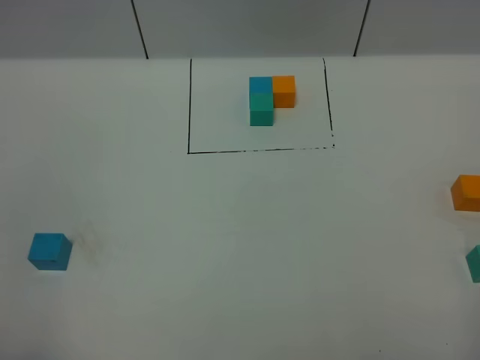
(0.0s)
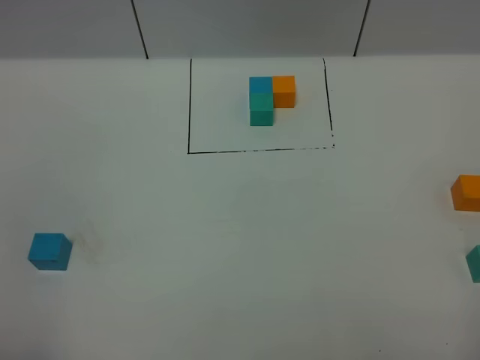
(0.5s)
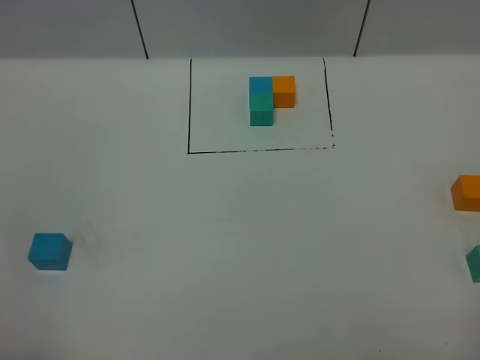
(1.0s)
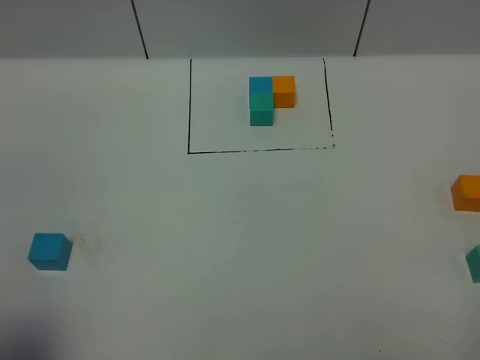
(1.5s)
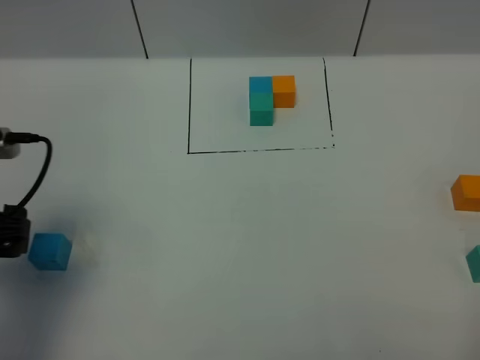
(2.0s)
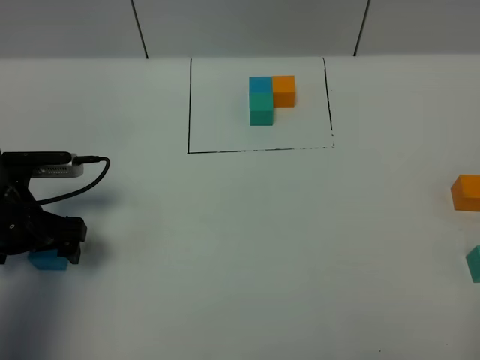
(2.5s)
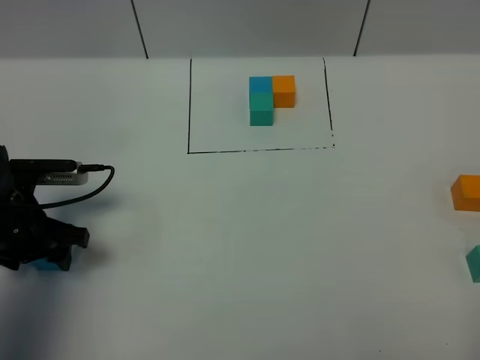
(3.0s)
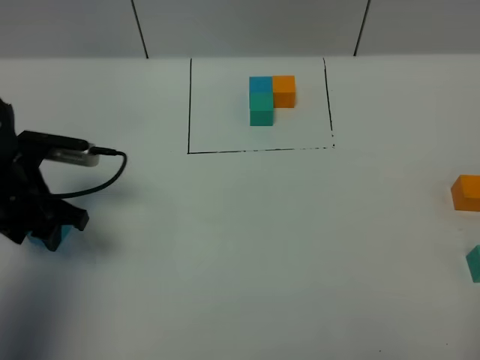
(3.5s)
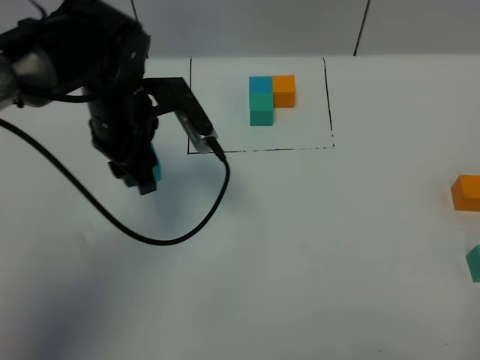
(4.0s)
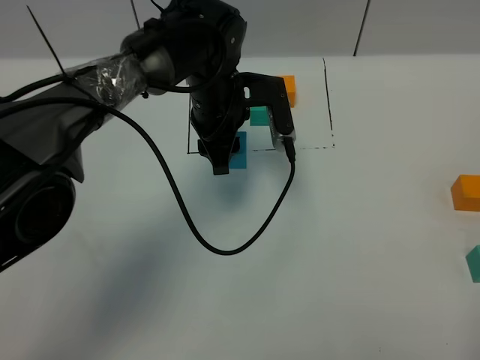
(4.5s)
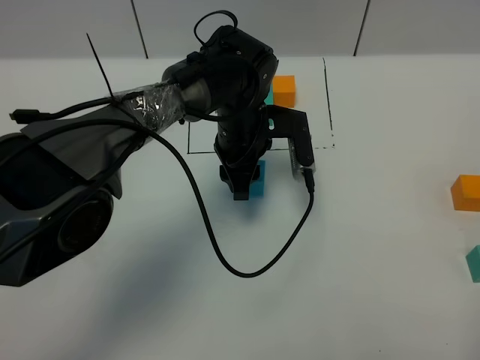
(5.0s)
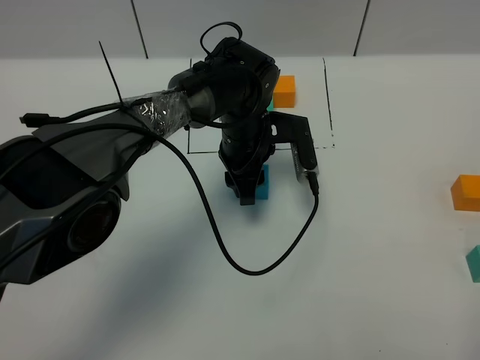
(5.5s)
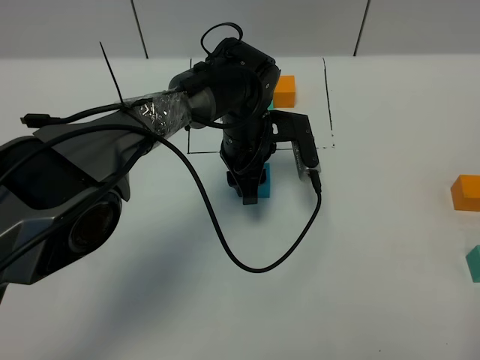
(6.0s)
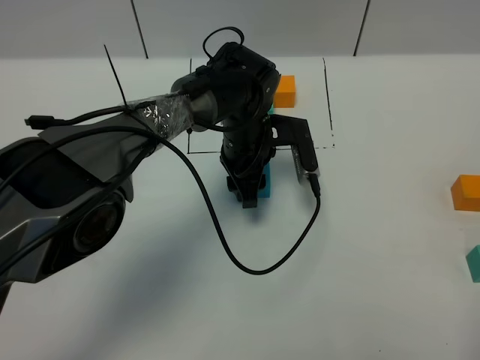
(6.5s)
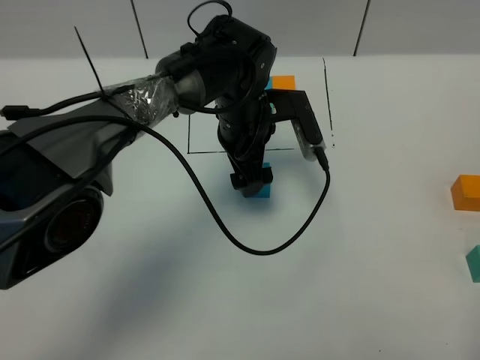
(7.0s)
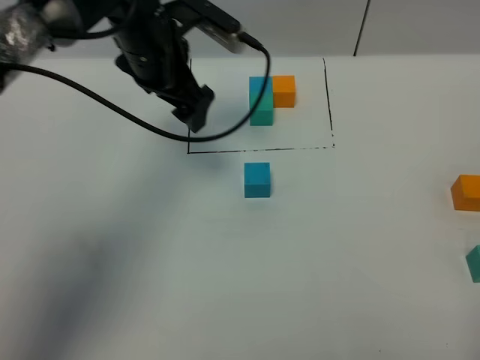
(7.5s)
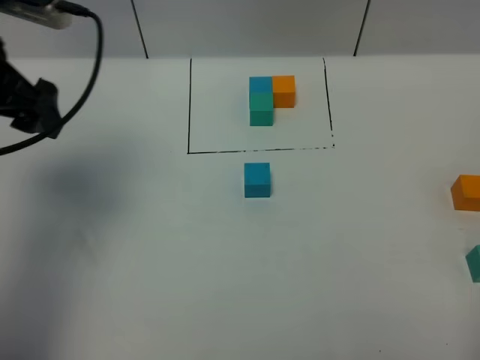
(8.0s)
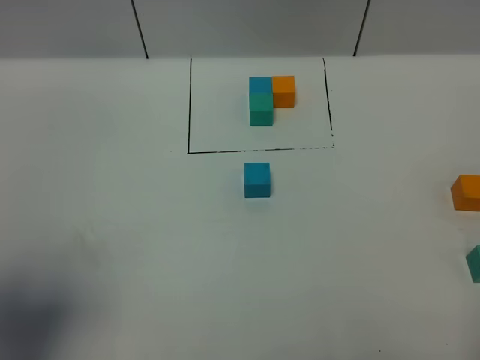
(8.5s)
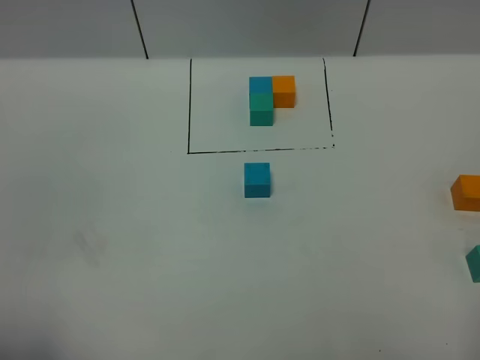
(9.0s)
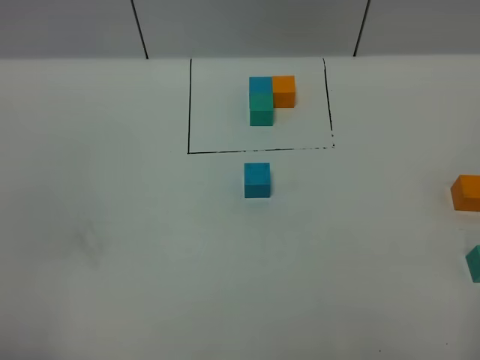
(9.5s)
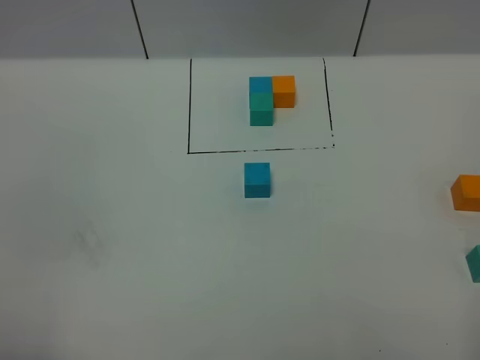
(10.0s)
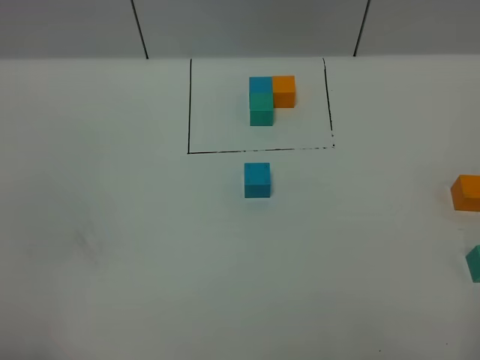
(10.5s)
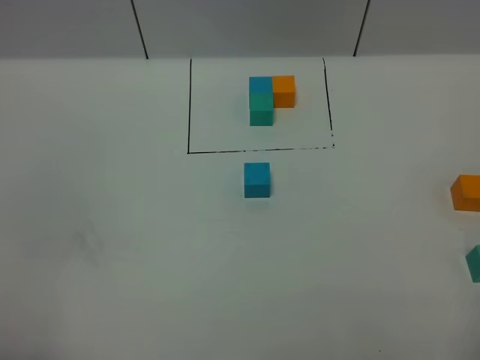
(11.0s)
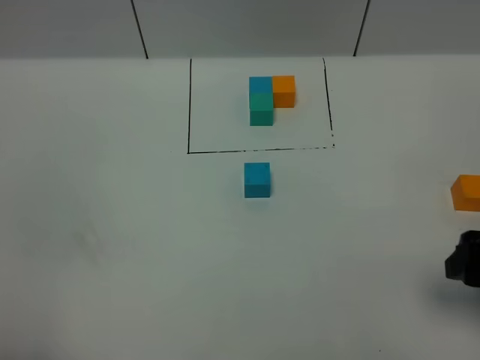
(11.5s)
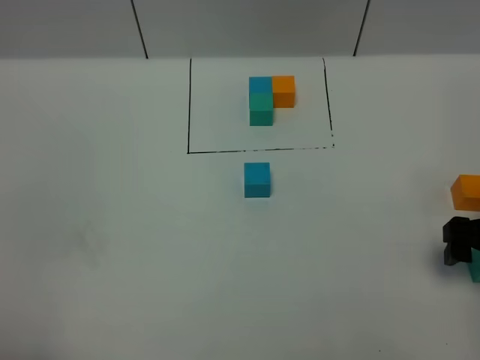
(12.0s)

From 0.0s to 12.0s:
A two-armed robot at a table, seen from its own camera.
Task of the whole recording: According to the building block template in front, assemble the scattered blocks together.
Step, from 0.0s to 6.5s: Put the blue build block in the center of the table.
From 0.0s to 2.0s: The left gripper is displaced forward by roughly 20 cm, and opens its fingers.
From 2.0s to 4.0s: The left gripper heads to the right and forward, covering about 20 cm, and closes up.
From 4.0s to 6.0s: The left gripper heads to the right and downward, covering some 15 cm.
From 6.0s to 8.0s: The left gripper goes about 35 cm to the left and upward, and opens up.
From 8.0s to 10.0s: The left gripper heads backward, covering roughly 30 cm, and closes its fingers.
From 10.0s to 12.0s: The right gripper moves forward and downward, approximately 25 cm.

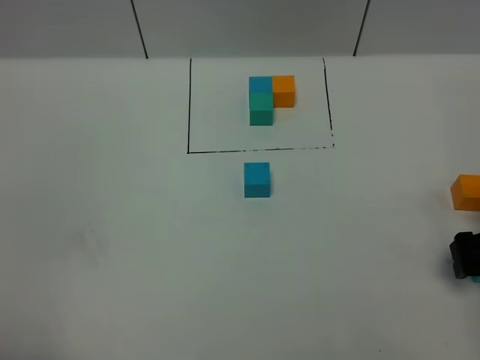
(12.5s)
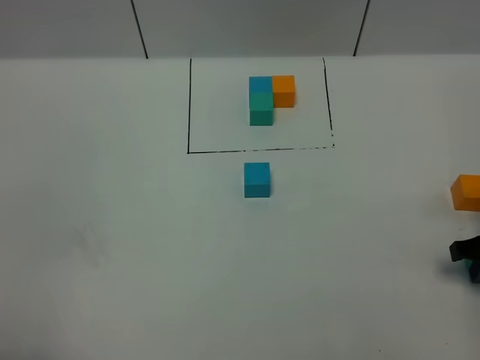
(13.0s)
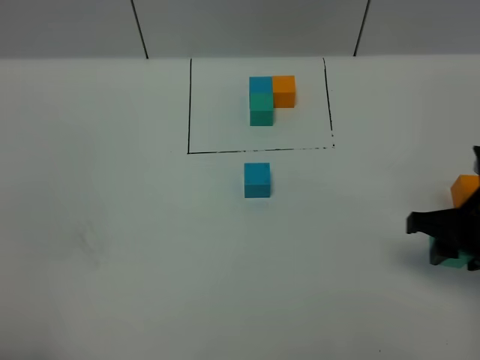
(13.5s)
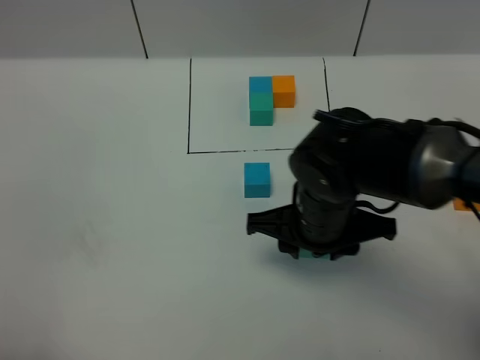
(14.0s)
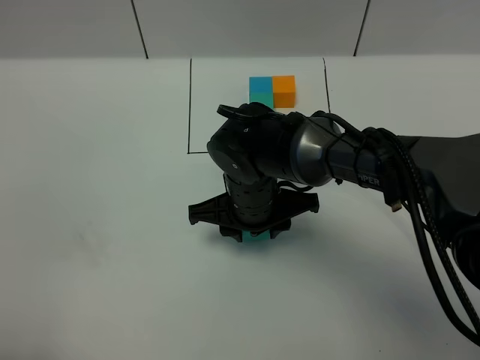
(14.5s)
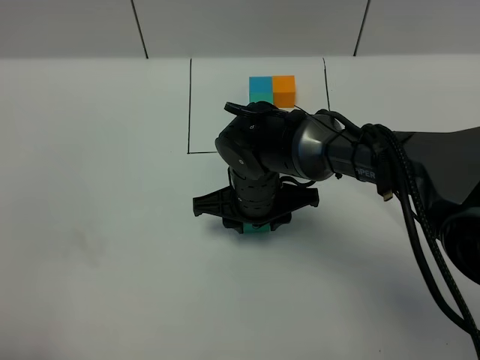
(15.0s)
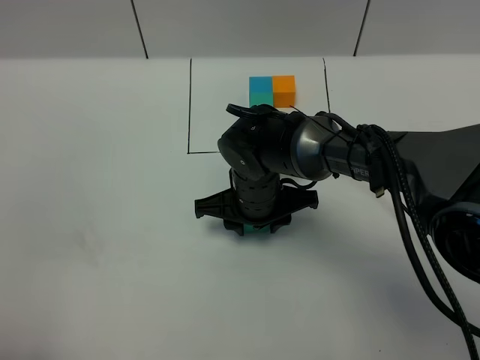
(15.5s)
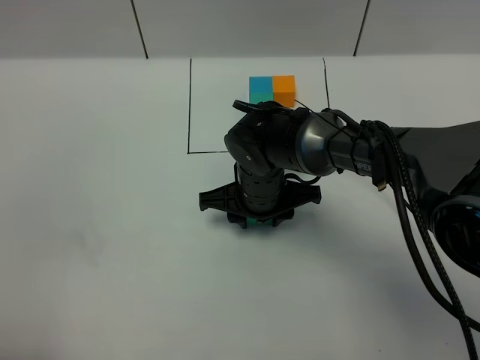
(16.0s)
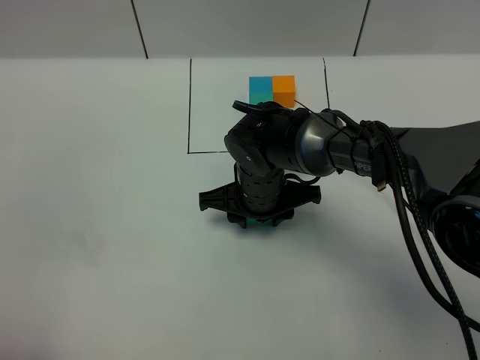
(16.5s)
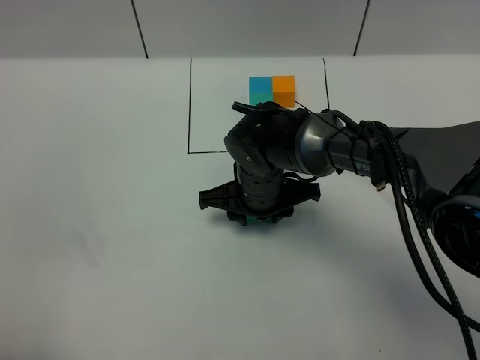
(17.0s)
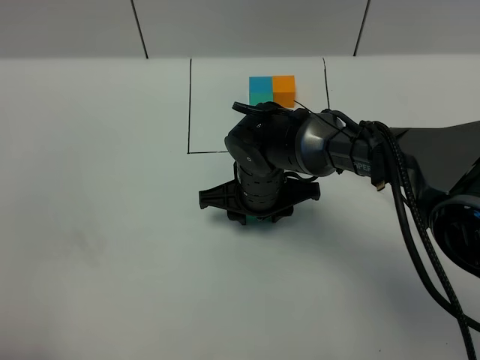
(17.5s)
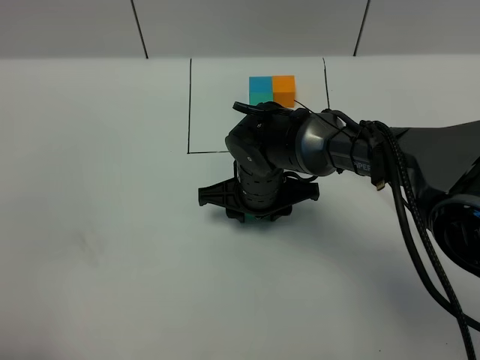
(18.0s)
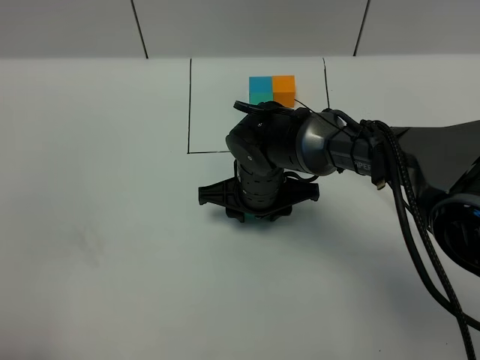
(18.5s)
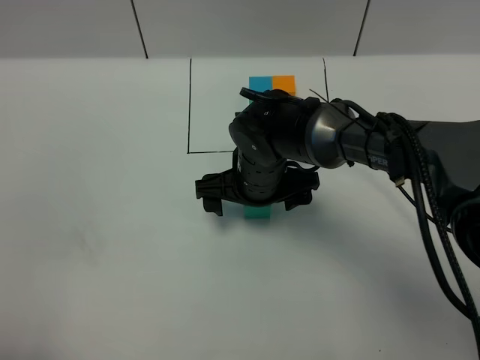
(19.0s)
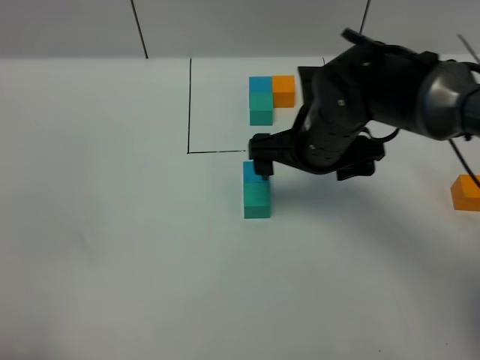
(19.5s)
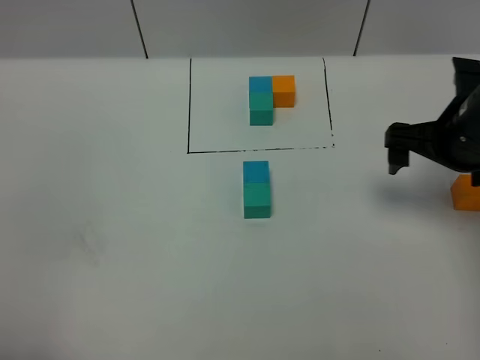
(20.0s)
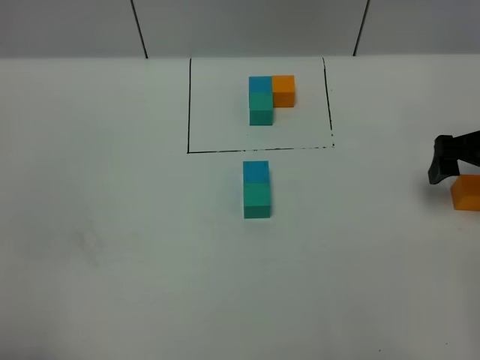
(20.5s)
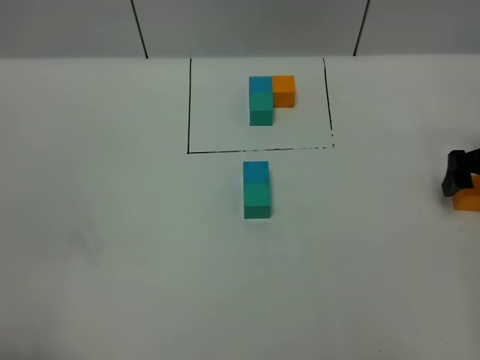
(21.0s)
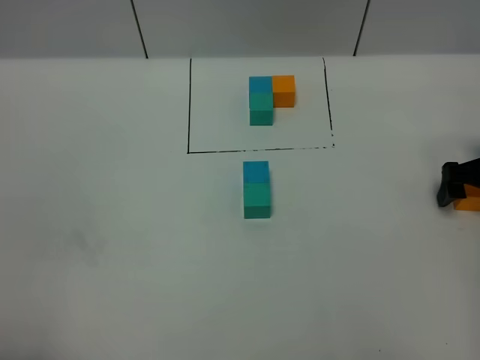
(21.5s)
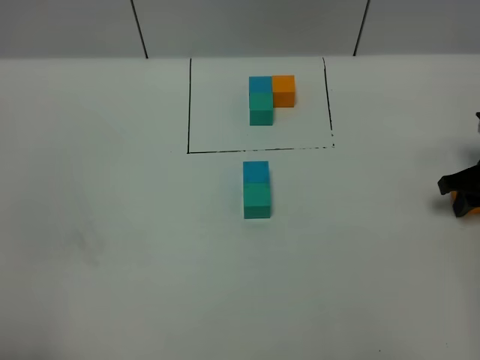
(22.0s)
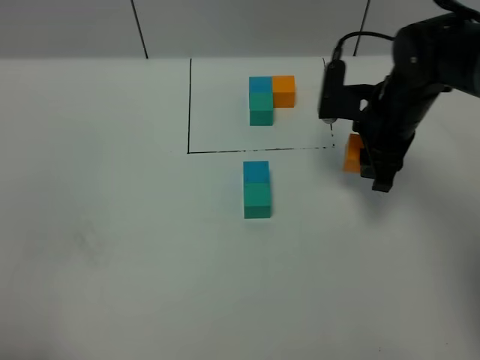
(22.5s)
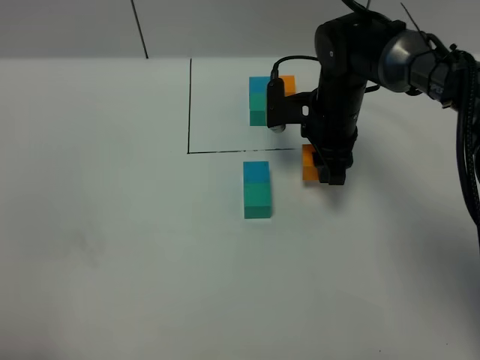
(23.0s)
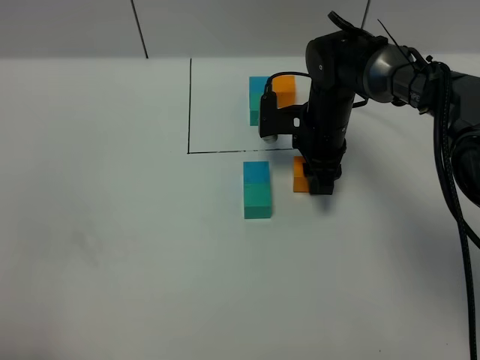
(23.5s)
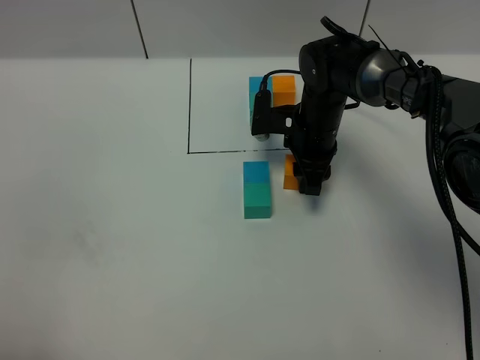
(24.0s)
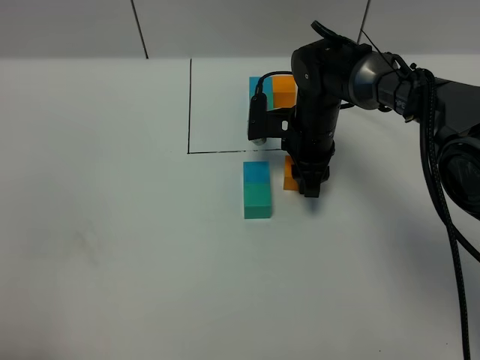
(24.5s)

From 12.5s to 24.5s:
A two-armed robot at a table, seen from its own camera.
Task of the whole recording: According to the building block template in front, assemble the scattered blocks together.
Step, from 12.5s to 18.5s: Put the green build block on the behind of the blue build block.
From 12.5s to 14.5s: The right gripper travels to the left by some 30 cm, and closes.
From 14.5s to 16.5s: The grippers stay close to where they were, moving slightly.
From 16.5s to 18.5s: Neither gripper changes place.
From 18.5s to 20.5s: The right gripper is displaced to the right by roughly 30 cm, and opens.
From 20.5s to 22.5s: The right gripper heads to the left, covering about 15 cm, and closes.
From 22.5s to 24.5s: The right gripper shifts approximately 10 cm to the left and downward.

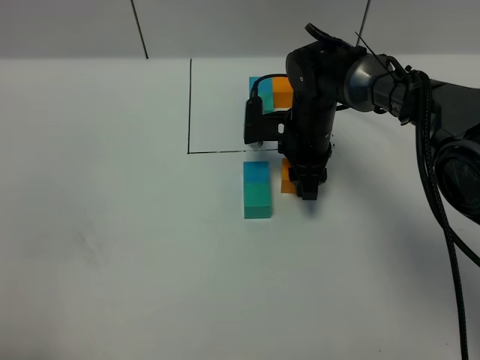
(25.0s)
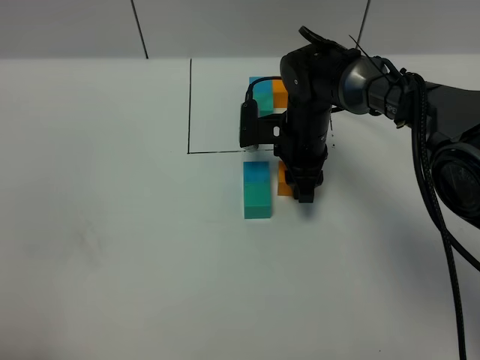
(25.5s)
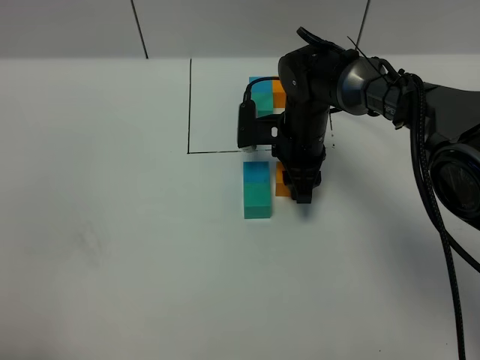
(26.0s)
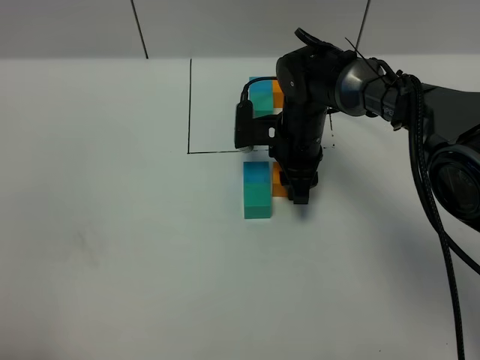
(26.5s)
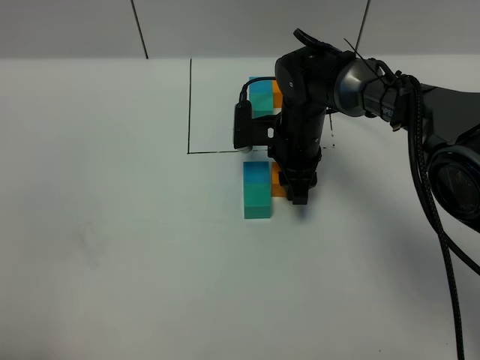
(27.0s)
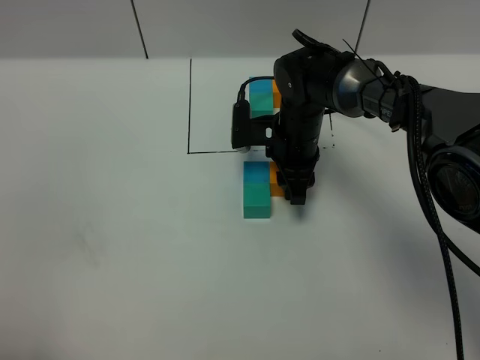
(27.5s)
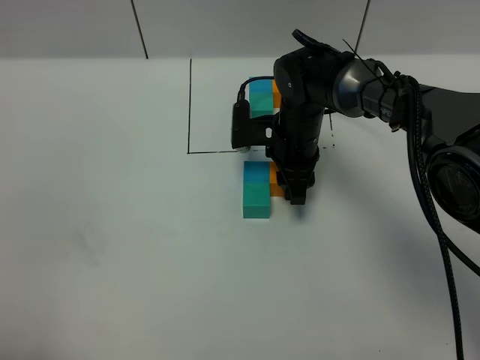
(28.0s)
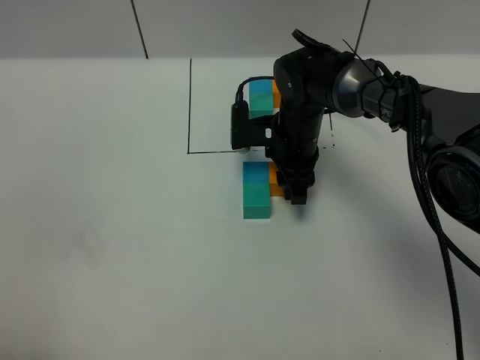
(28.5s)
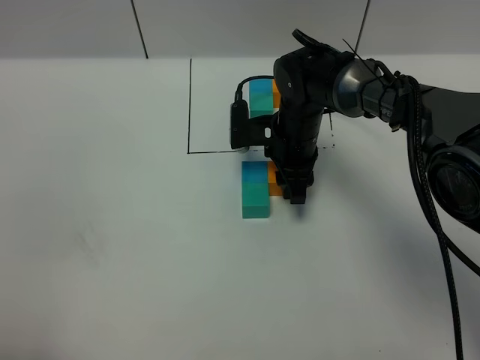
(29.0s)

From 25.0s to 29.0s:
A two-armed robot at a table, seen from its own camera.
Task of the whole recording: According to the building block template in front, assemble the scattered blocks together.
From 25.0s to 27.0s: There are only small adjustments of the grippers.
From 27.0s to 29.0s: Both grippers stay about where they are.
